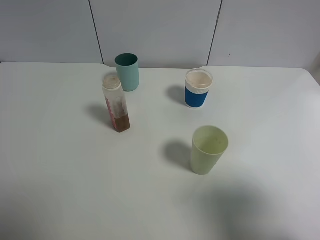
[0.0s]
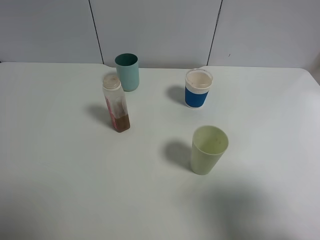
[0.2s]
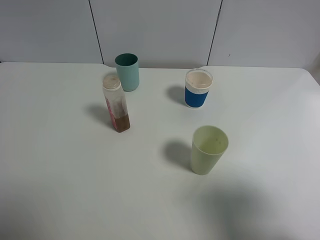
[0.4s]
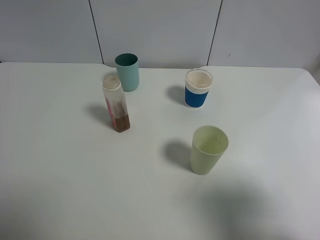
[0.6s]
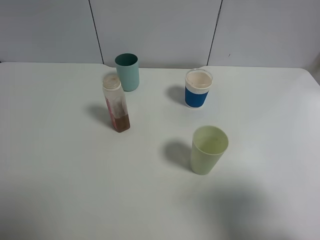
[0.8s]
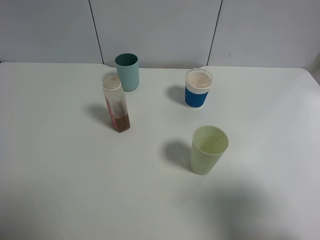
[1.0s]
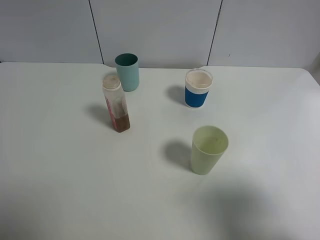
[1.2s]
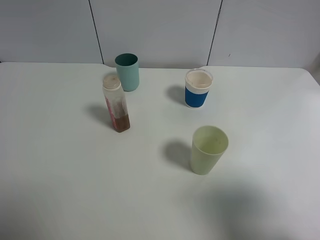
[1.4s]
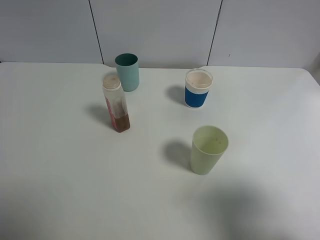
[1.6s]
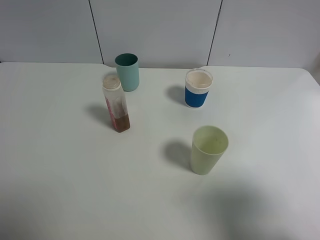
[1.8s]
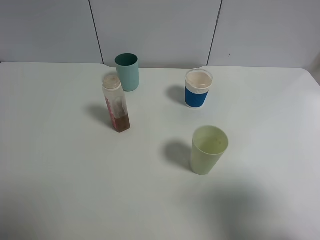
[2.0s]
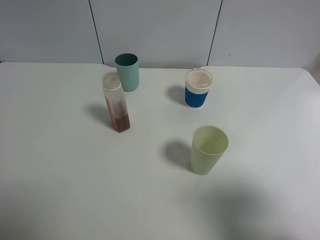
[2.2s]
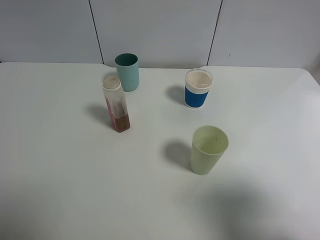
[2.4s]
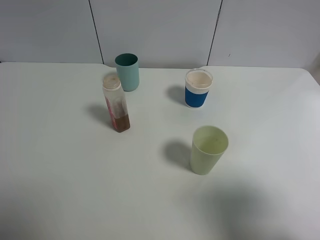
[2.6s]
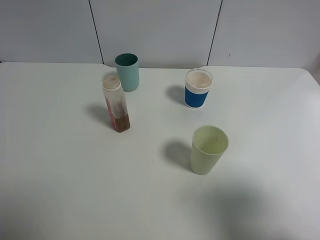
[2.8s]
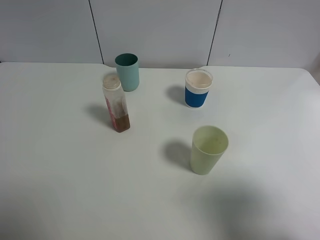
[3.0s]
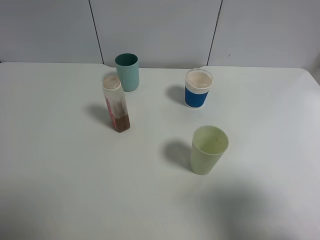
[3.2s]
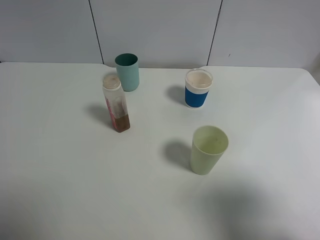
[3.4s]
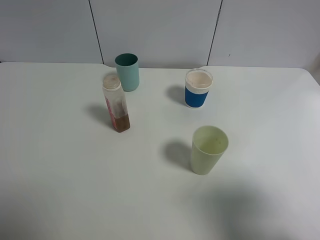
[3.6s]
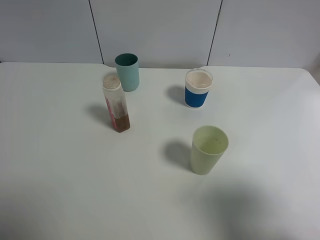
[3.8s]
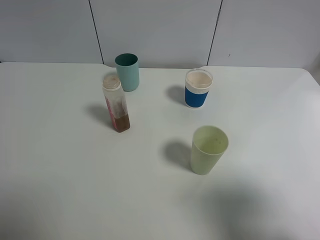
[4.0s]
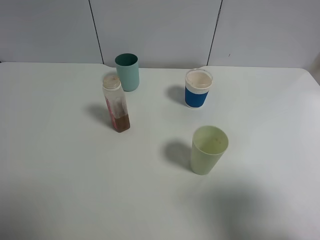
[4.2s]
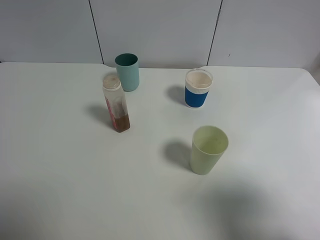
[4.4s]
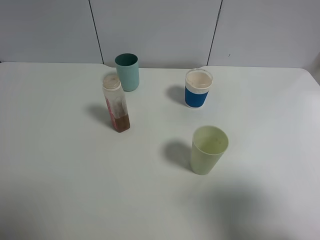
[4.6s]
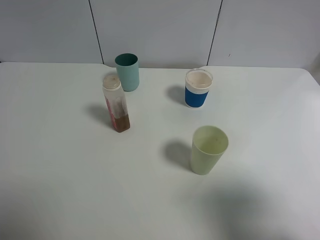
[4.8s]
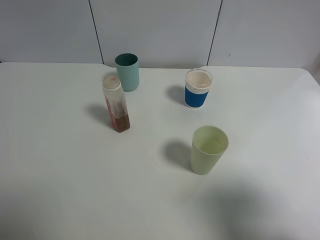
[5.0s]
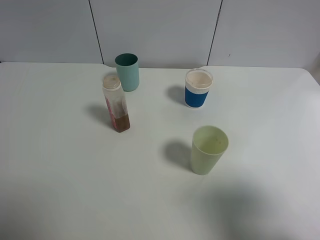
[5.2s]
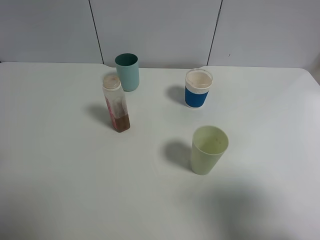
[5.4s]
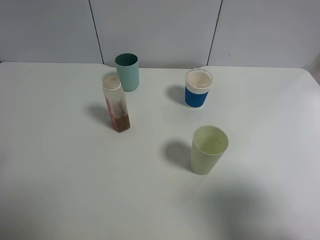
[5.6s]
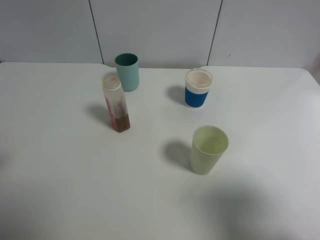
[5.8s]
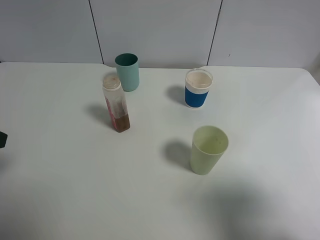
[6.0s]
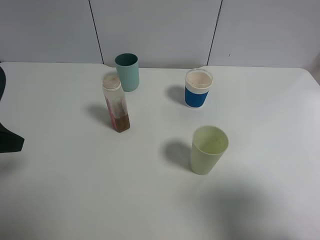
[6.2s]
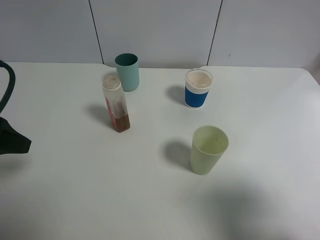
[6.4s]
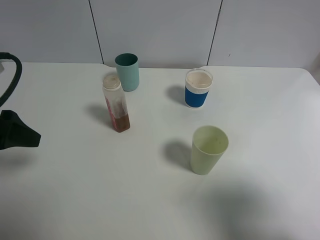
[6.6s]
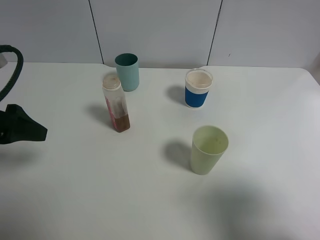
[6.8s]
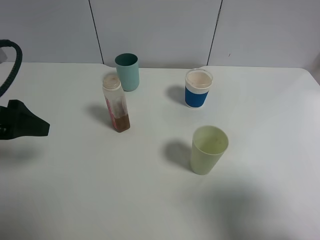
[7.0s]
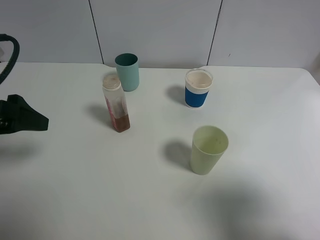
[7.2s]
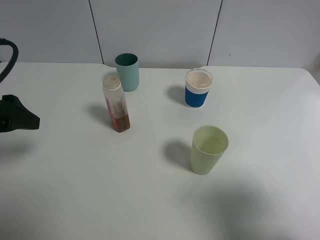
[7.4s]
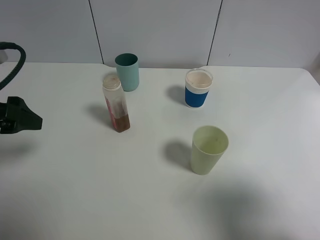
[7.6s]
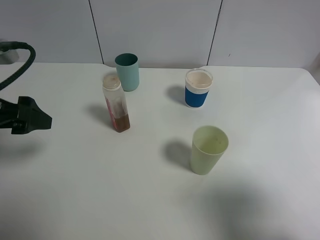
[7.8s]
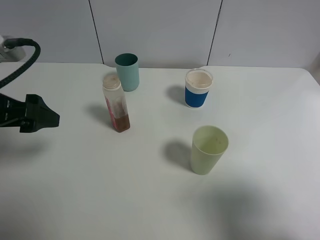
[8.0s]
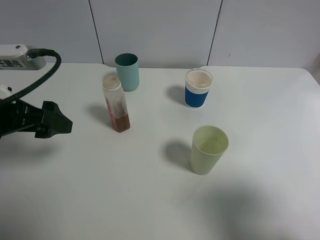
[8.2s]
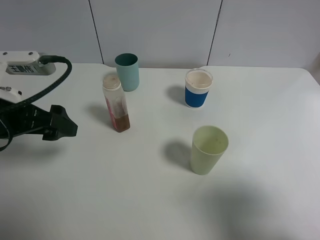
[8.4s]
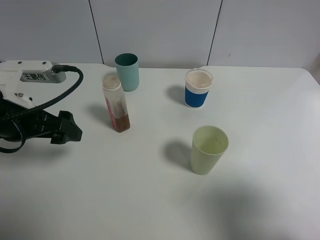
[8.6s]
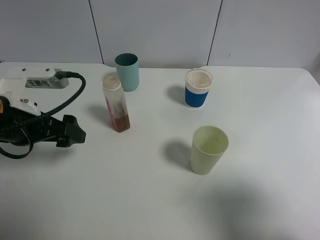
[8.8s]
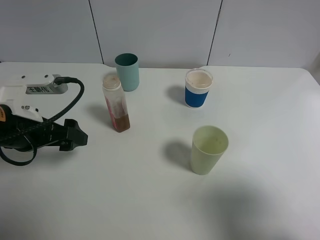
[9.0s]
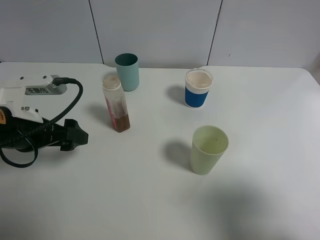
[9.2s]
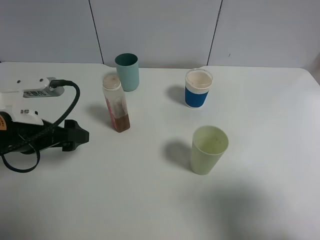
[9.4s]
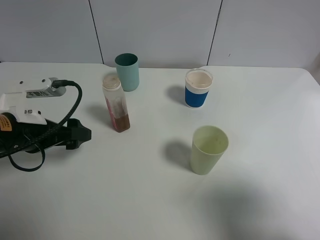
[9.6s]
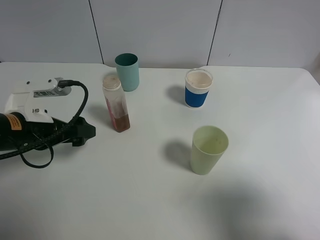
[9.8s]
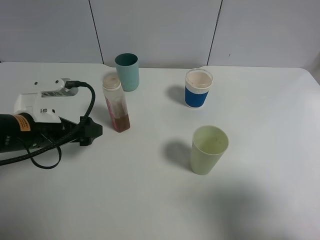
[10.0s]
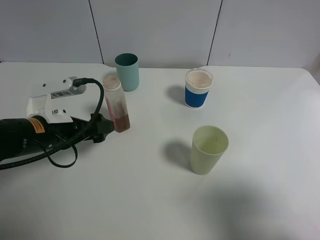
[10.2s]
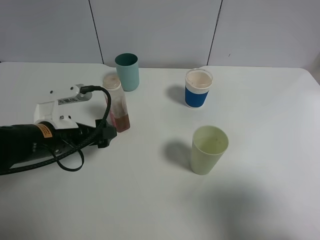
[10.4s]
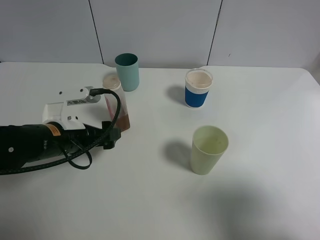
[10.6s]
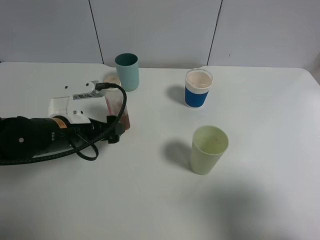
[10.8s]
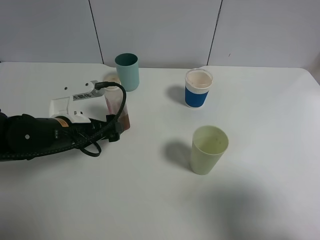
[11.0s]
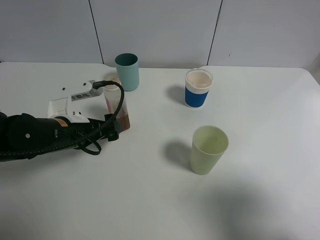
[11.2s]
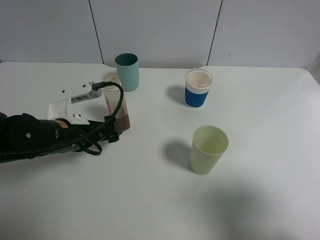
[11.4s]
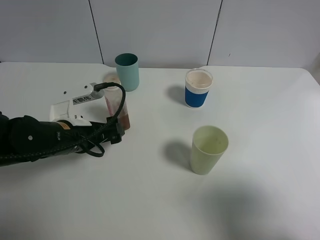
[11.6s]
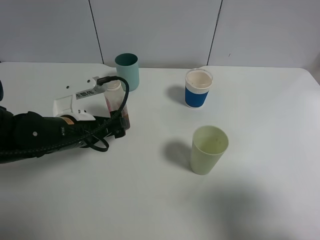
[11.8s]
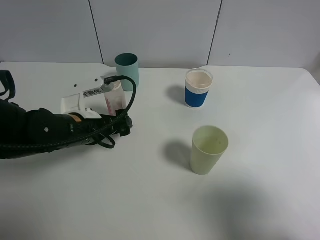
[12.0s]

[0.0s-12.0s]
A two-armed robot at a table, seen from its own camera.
Task of the whole recording: use a gripper to hold the bottle of the drink and pour it into a random cup.
0.0s to 4.4s: Both grippers stay put.
6.0s to 7.6s: The left gripper moves about 5 cm.
7.6s to 9.0s: The left gripper heads downward and to the right, covering approximately 10 cm.
9.0s to 10.4s: The left gripper moves downward, roughly 5 cm.
10.4s to 12.0s: The grippers move only a little.

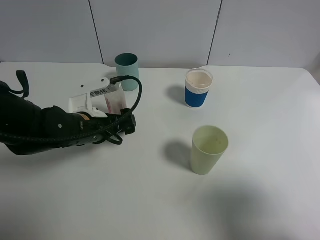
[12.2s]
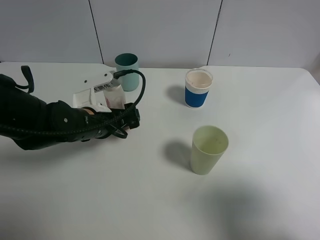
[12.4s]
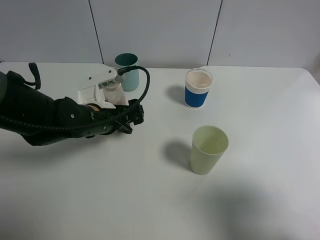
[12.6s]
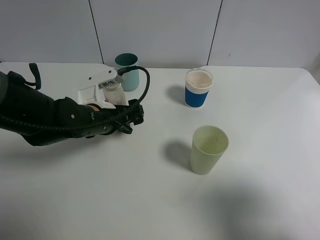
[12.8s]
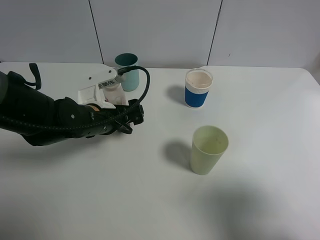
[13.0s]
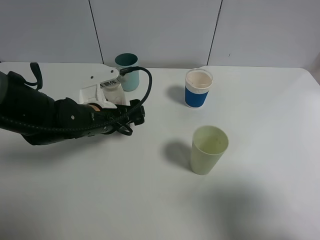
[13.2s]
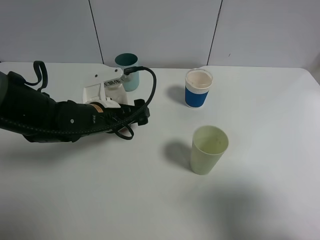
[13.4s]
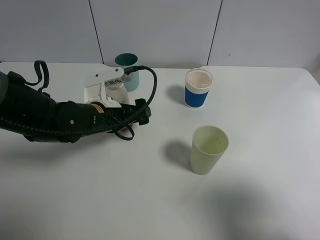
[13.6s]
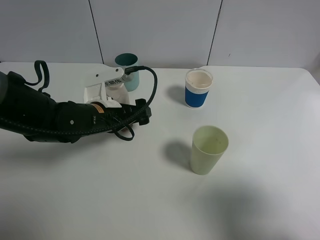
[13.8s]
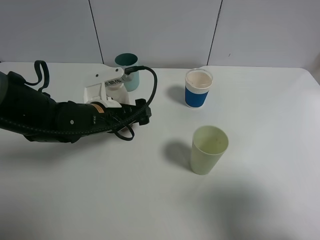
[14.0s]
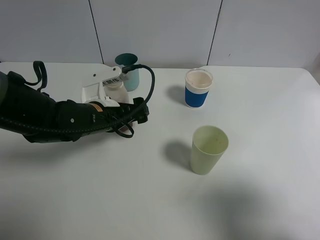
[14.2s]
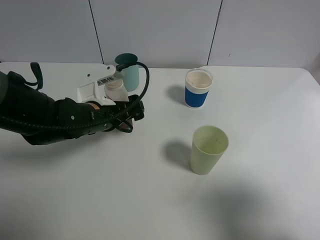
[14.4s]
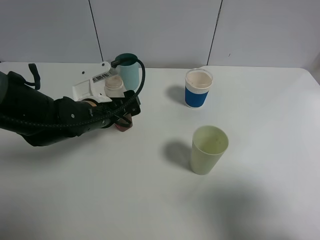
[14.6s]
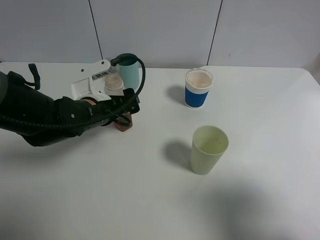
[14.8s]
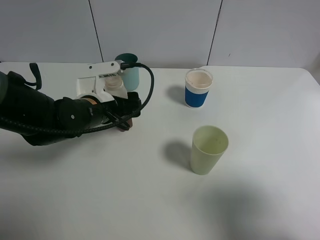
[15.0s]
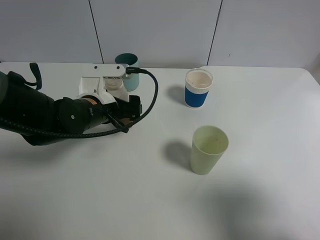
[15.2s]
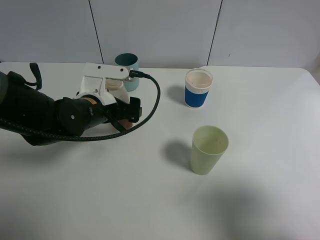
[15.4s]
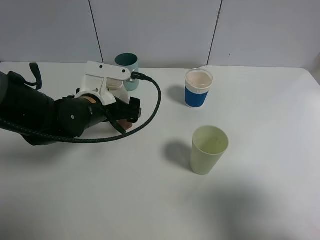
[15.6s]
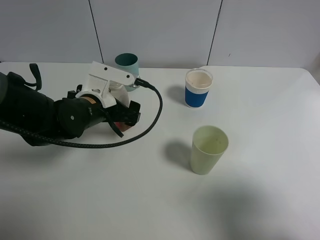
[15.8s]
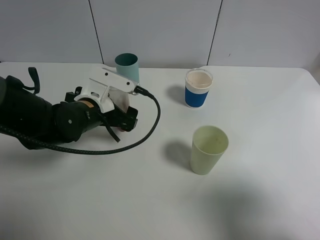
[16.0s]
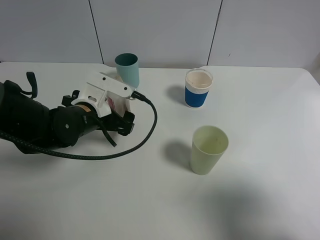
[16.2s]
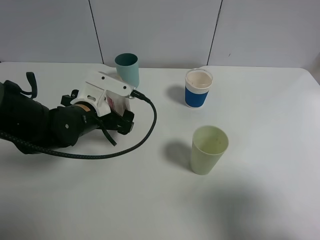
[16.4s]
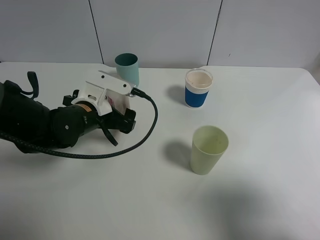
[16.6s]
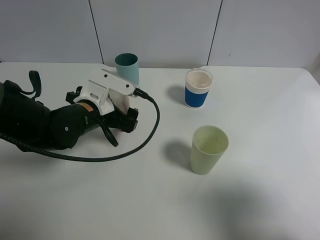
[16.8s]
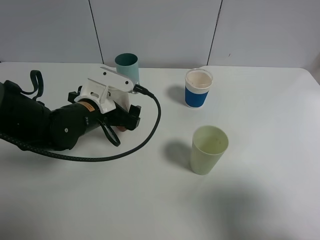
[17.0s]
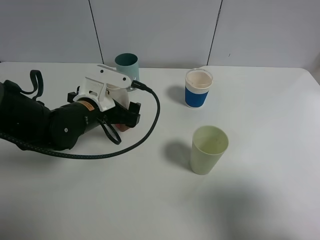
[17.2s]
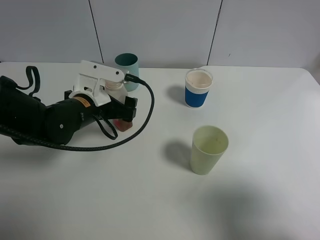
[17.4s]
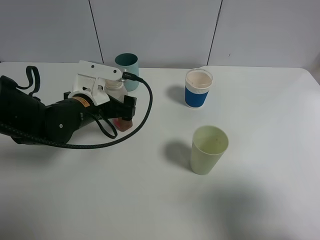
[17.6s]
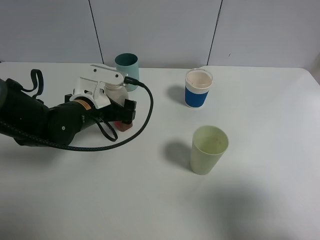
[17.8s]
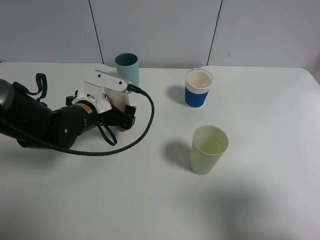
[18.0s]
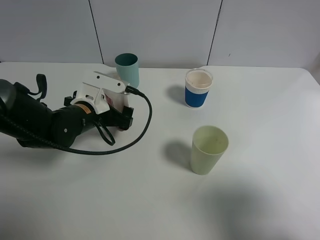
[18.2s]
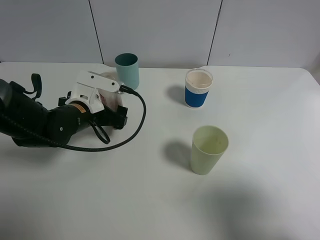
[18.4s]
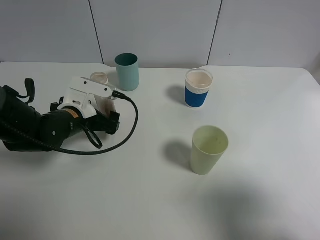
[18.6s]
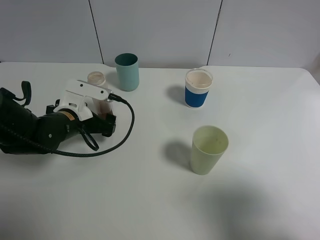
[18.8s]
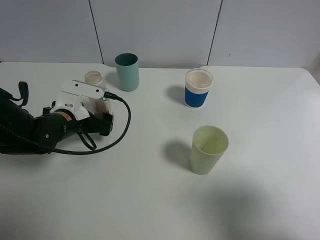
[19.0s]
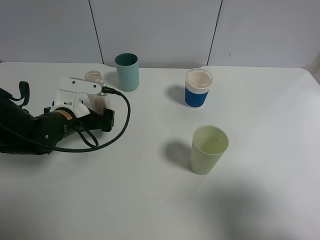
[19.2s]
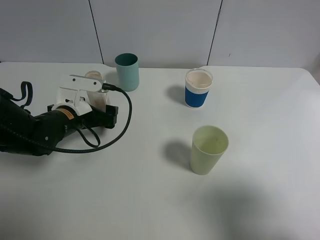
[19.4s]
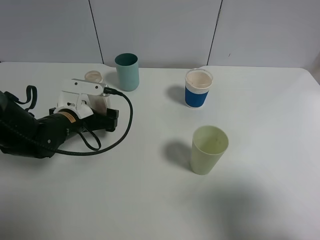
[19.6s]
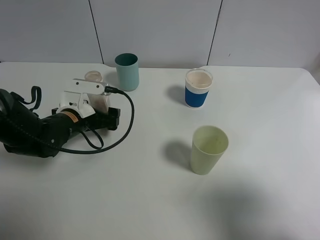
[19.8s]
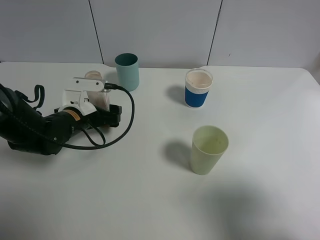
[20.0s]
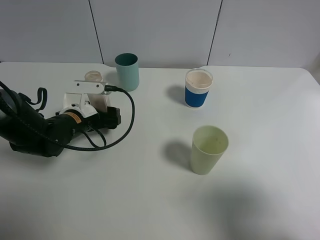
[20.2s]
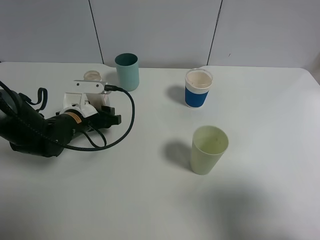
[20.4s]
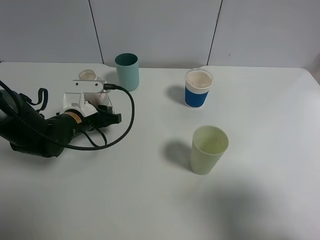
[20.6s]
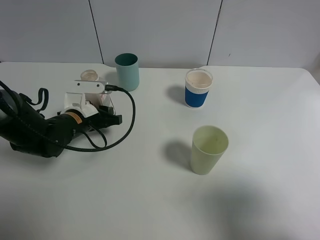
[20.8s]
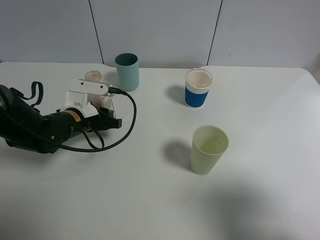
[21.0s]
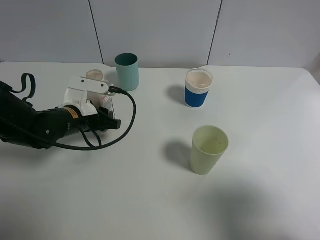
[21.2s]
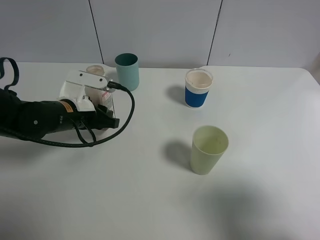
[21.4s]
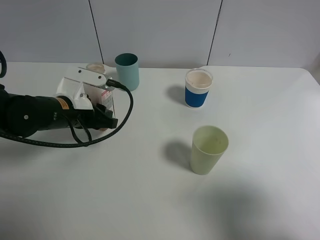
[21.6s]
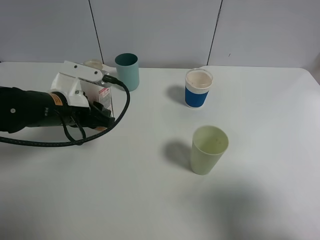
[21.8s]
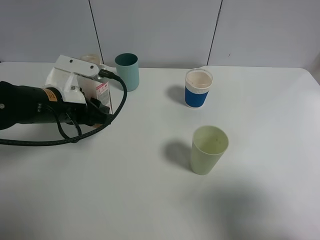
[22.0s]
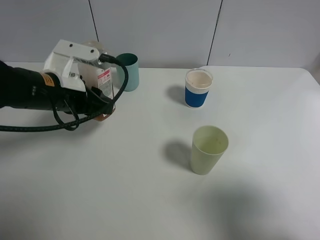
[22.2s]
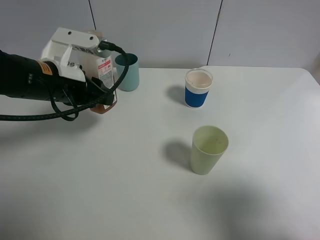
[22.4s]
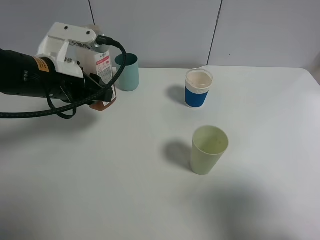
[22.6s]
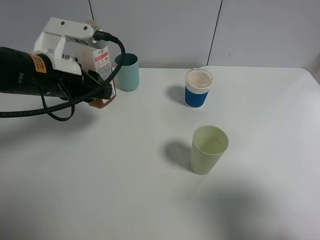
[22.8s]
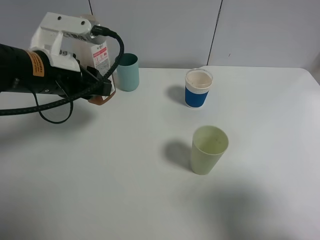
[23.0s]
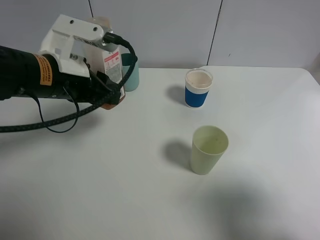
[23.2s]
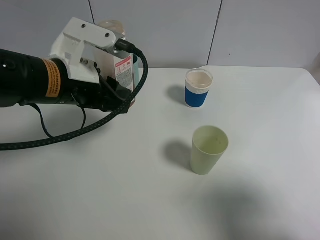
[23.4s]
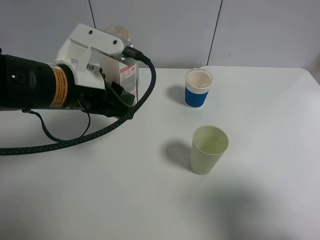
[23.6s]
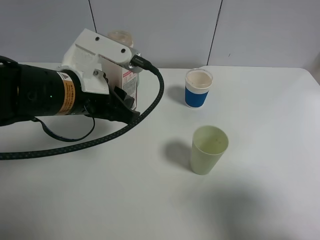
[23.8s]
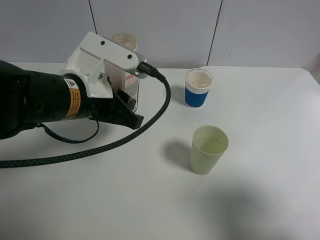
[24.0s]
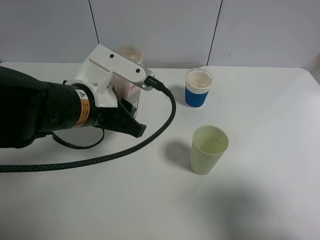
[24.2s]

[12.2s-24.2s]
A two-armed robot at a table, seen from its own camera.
Task of the whole recording: use a gripper to hold the bottle of the drink and pour it into a random cup.
Step, 12.2s to 20.8s: Grasp the cranberry juice bottle with the left gripper.
12.2s to 15.2s: The grippers move only a little.
16.6s to 18.2s: The grippers stay close to where they were, moving slightly.
18.2s to 19.8s: The grippers move only a little.
19.8s to 21.2s: The left gripper closes.
21.2s to 22.6s: The left gripper goes some 10 cm upward.
22.6s to 24.2s: The left gripper travels to the right and backward by roughly 10 cm.
